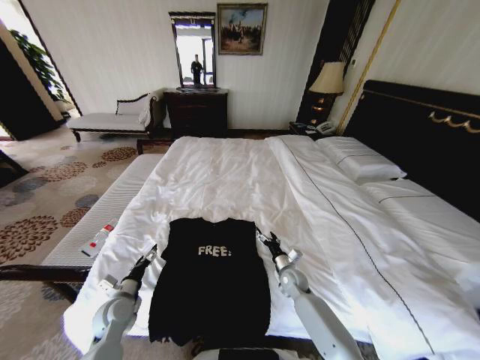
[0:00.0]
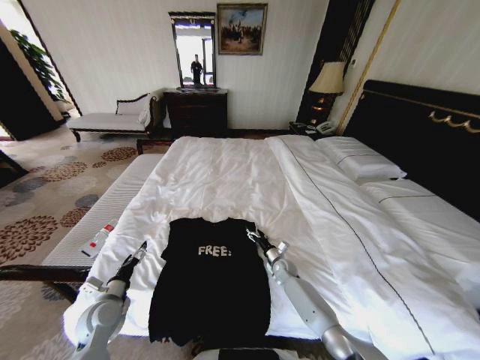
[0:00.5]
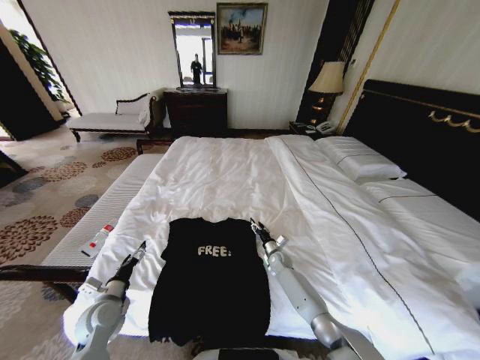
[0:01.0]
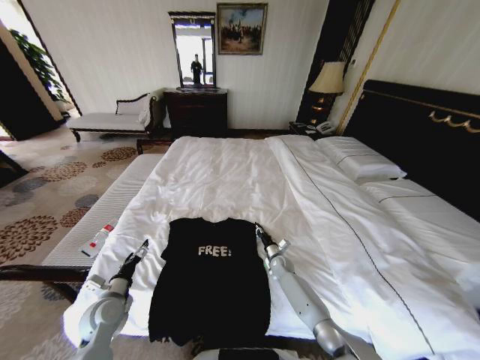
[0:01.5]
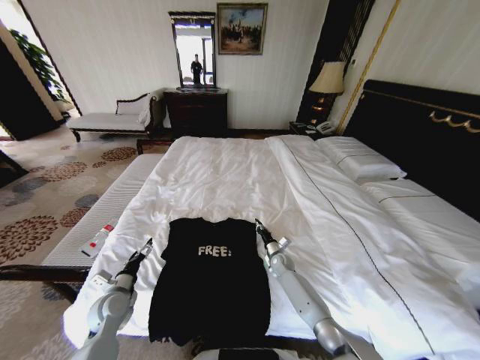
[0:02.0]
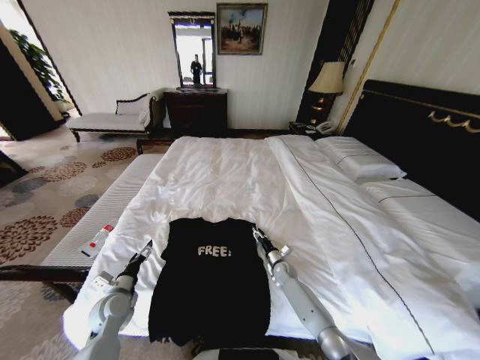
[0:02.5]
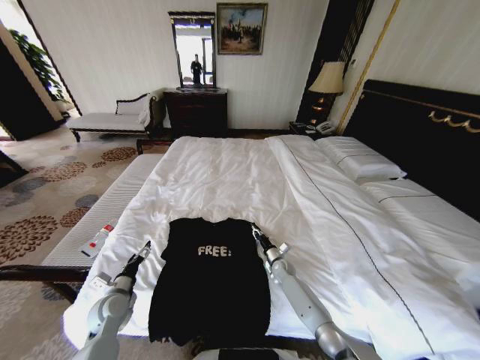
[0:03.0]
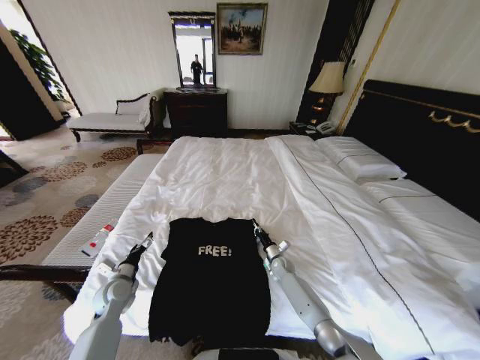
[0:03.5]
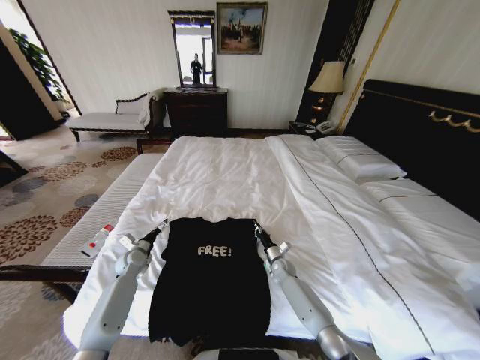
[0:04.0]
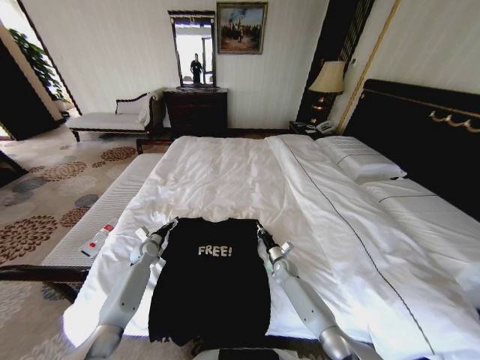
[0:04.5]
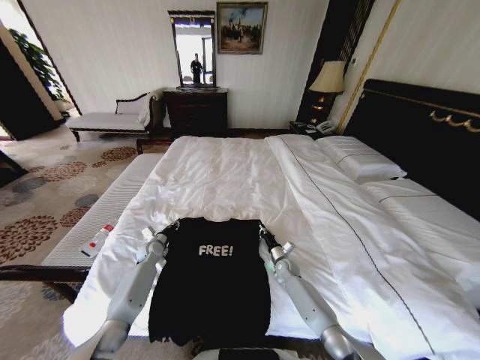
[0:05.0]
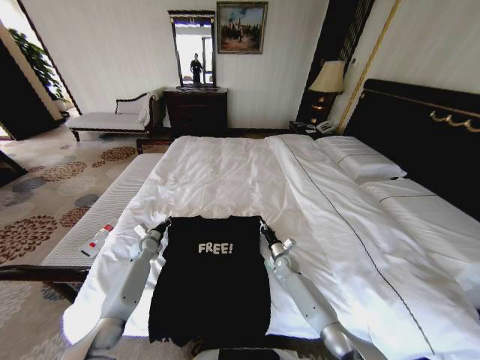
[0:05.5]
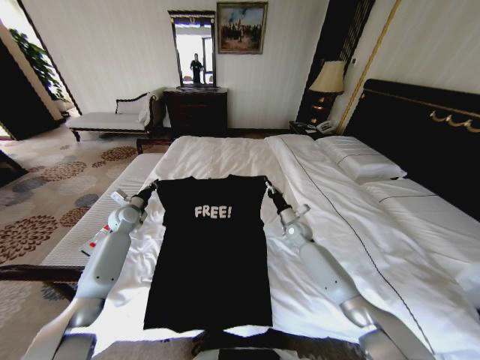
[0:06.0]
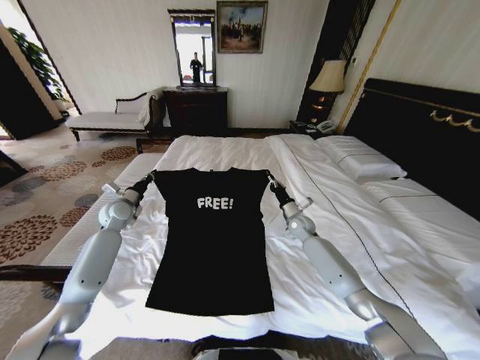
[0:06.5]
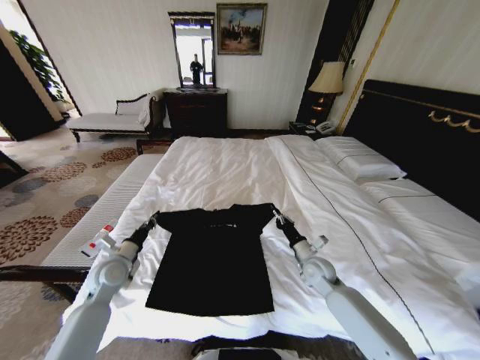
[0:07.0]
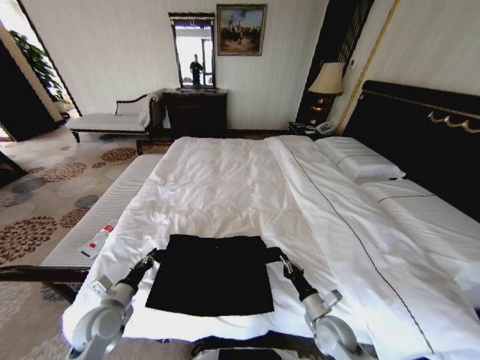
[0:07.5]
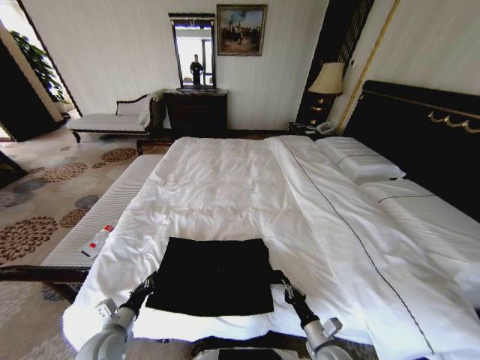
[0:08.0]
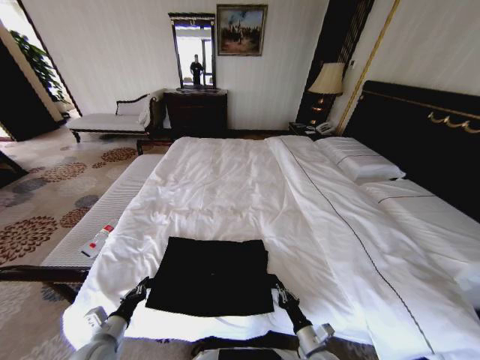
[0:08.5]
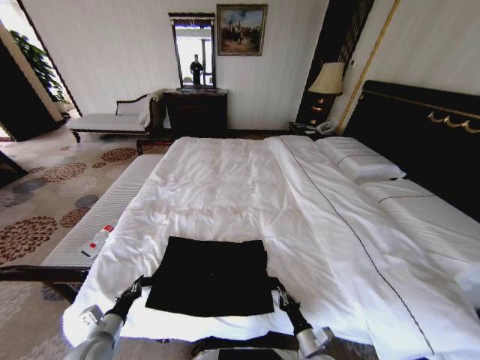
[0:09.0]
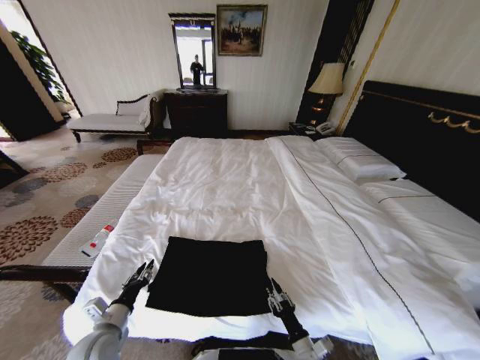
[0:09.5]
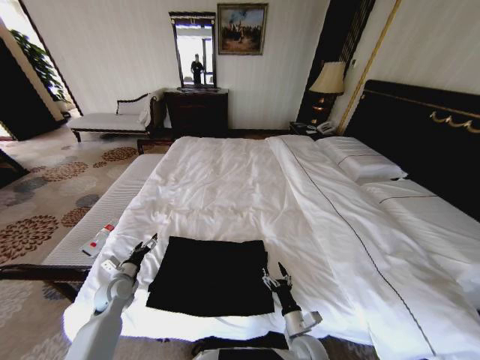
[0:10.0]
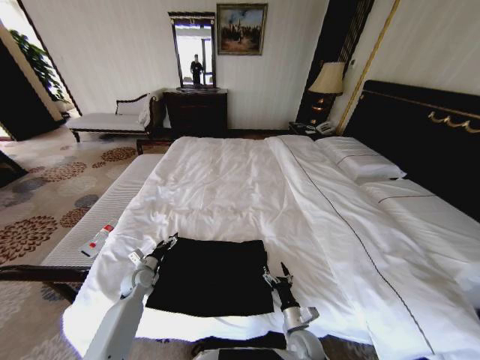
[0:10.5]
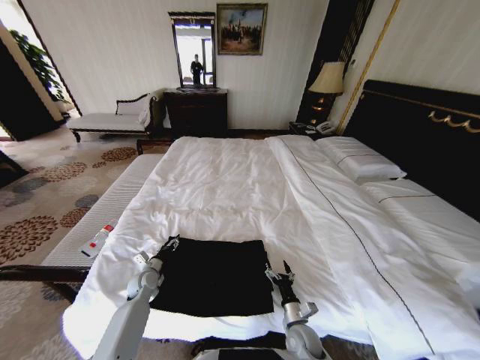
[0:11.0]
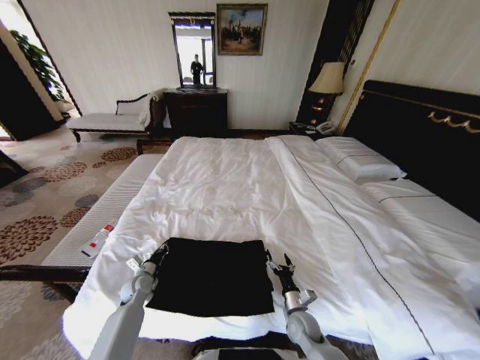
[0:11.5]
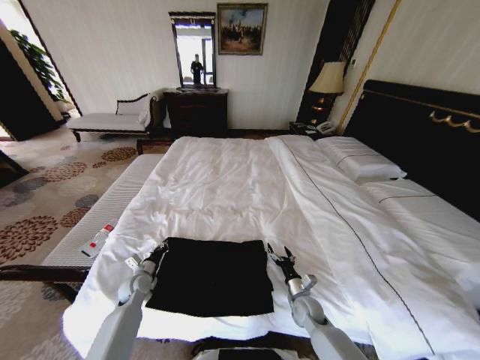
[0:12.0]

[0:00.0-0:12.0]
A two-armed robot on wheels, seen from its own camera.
Task of the whole recording: Fold the clothes on the bed.
0.0 to 2.0 s: The right gripper shifts roughly 10 cm forward, and closes up.
2.0 to 4.0 s: The left gripper heads forward, covering some 15 cm, while the right gripper opens, then closes once more.
4.0 to 6.0 s: The grippers both shift upward and forward by some 15 cm. The left gripper closes its fingers.
6.0 to 8.0 s: Both grippers move backward, about 35 cm.
8.0 to 10.0 s: The left gripper heads forward, covering roughly 15 cm, and opens its fingers; the right gripper heads to the left, covering some 5 cm, and opens up.
10.0 to 12.0 s: The right gripper goes roughly 10 cm forward. Meanwhile the left gripper moves roughly 5 cm, and closes up.

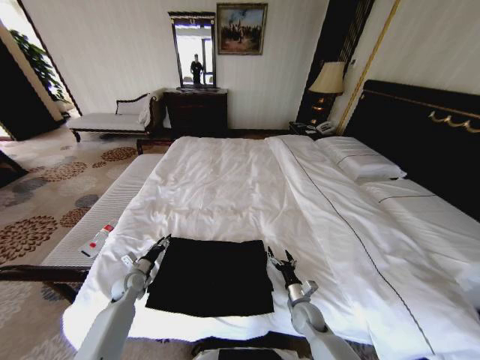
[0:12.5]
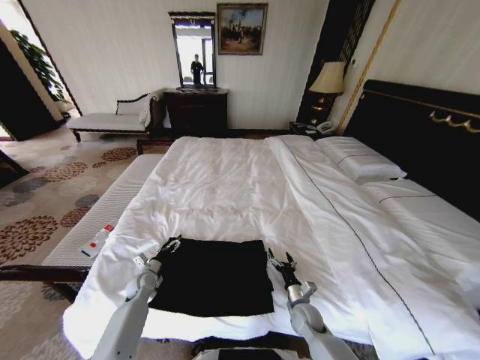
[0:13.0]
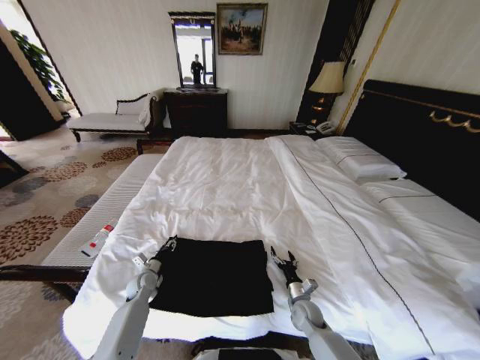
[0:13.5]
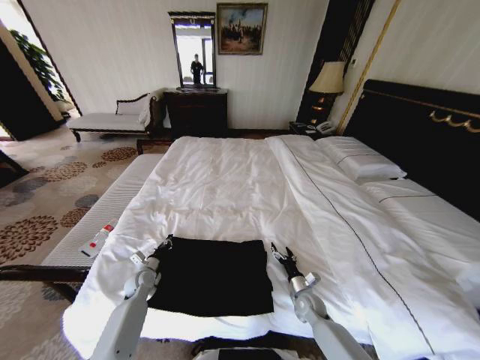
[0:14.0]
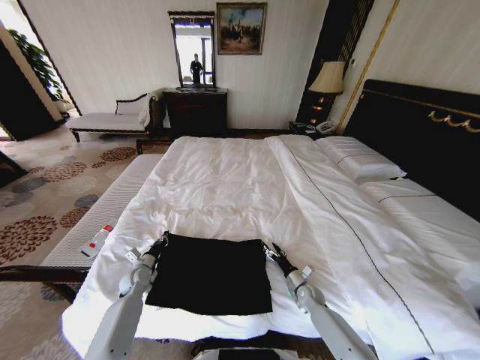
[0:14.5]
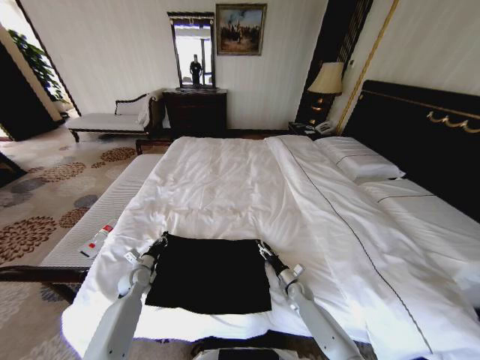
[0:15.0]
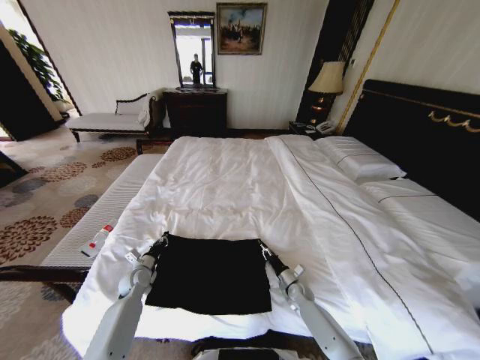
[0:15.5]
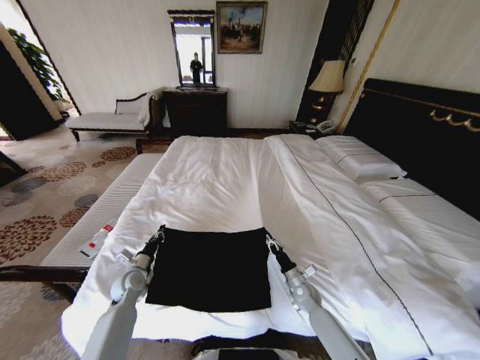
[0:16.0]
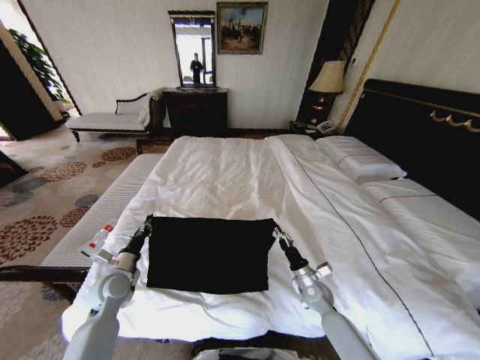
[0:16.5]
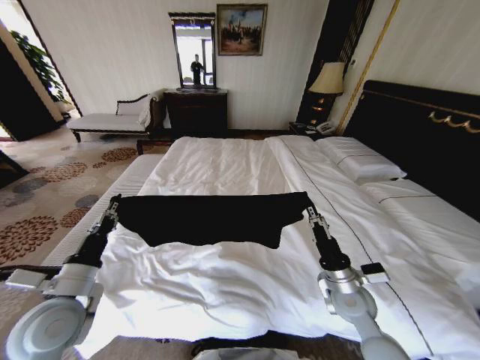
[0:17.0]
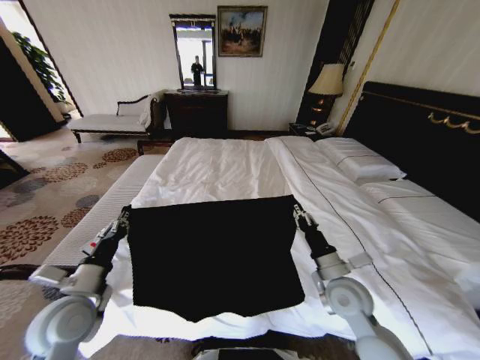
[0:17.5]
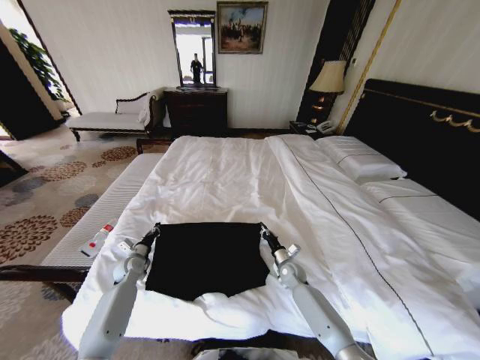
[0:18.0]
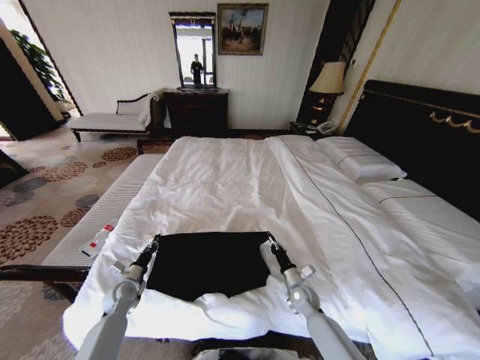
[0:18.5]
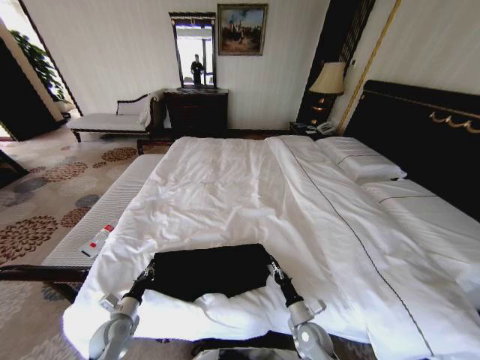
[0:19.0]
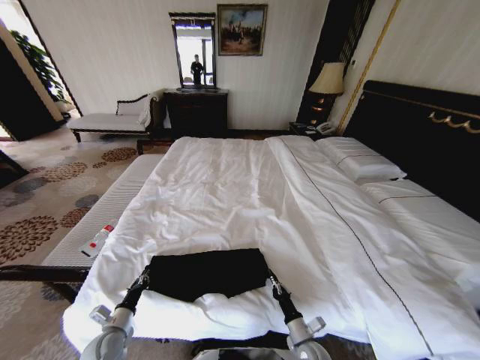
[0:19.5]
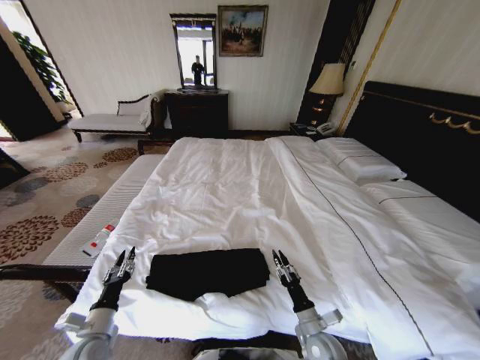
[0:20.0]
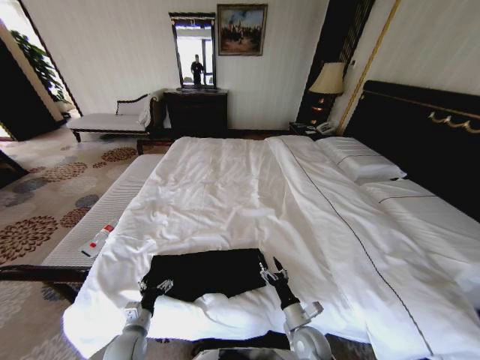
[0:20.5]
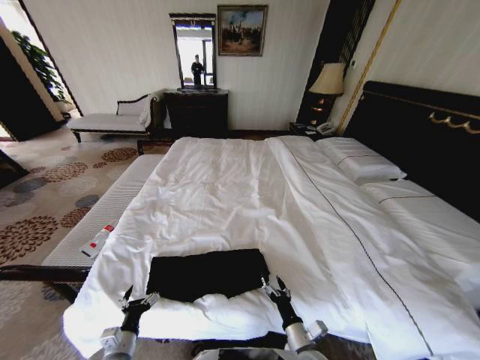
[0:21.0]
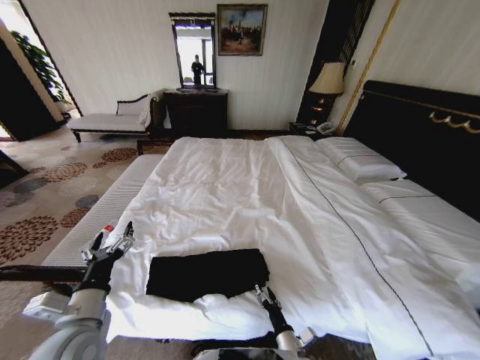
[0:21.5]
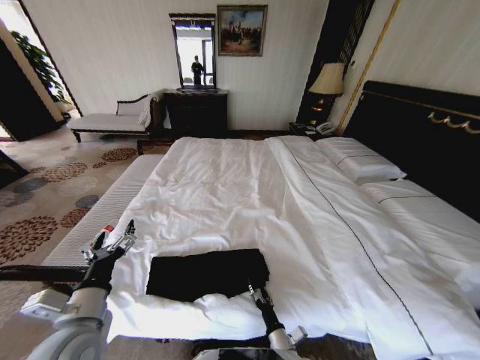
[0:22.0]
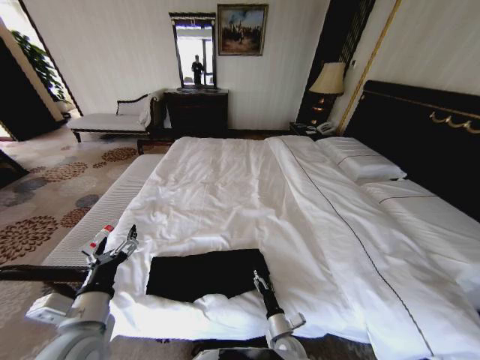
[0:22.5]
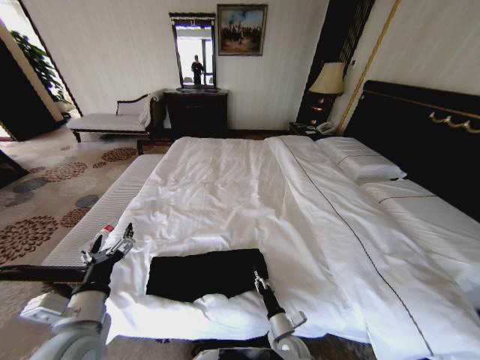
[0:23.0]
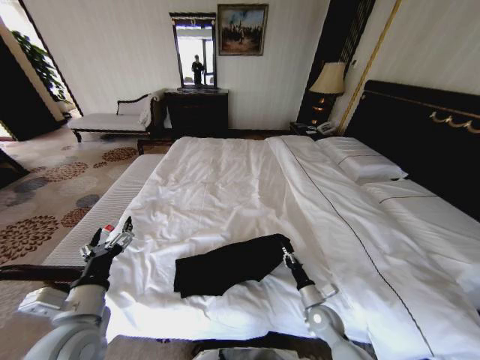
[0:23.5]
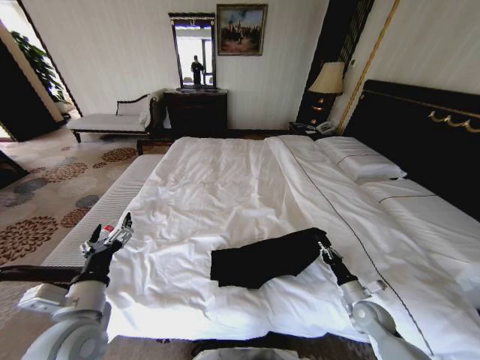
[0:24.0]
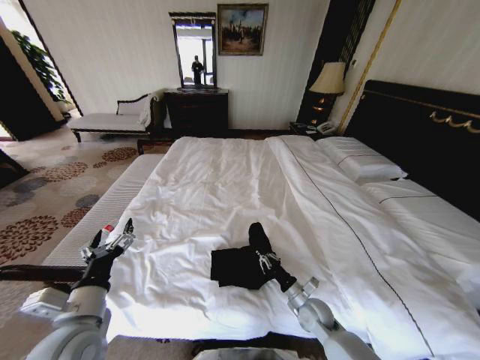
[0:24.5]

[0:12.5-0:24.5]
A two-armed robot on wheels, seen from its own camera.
Task of the whole recording: Fold the clothes on the bed.
12.5 to 14.5 s: The left gripper closes its fingers; the right gripper shifts some 10 cm forward and to the right.
14.5 to 16.5 s: The left gripper is displaced upward and backward by about 10 cm, while the right gripper travels upward by approximately 10 cm, and closes up.
16.5 to 18.5 s: The left gripper travels downward by some 10 cm. Meanwhile the right gripper goes upward and returns, approximately 20 cm each way.
18.5 to 20.5 s: The right gripper is displaced backward by roughly 15 cm, and opens up, while the left gripper travels backward and to the right by approximately 15 cm, and opens up.
20.5 to 22.5 s: The right gripper travels downward by some 5 cm; the left gripper is displaced upward by roughly 25 cm.
22.5 to 24.5 s: The right gripper moves forward and upward, some 10 cm, reaches some 25 cm to the right, then returns, and closes up.

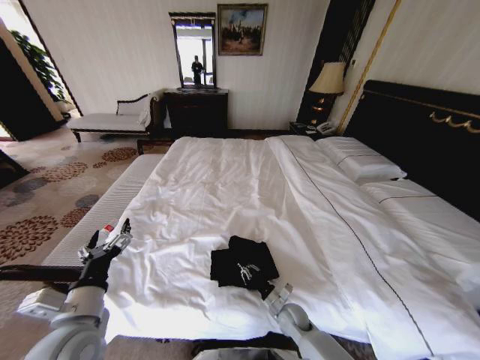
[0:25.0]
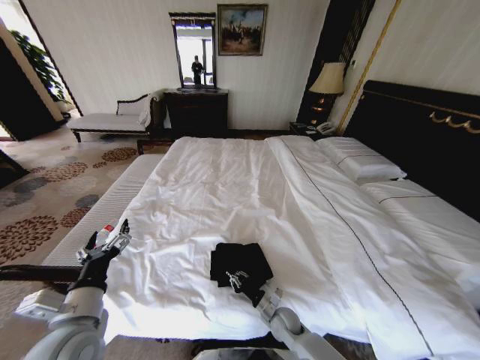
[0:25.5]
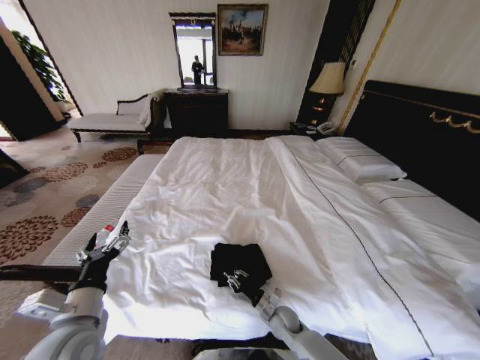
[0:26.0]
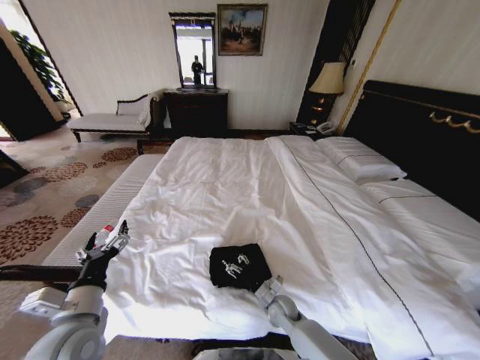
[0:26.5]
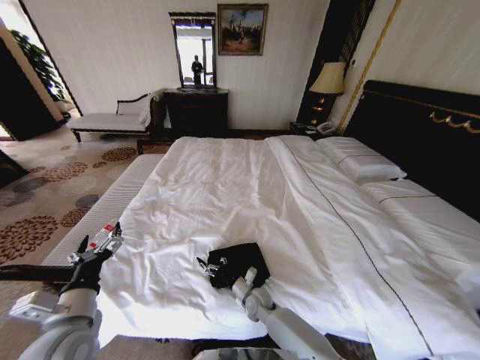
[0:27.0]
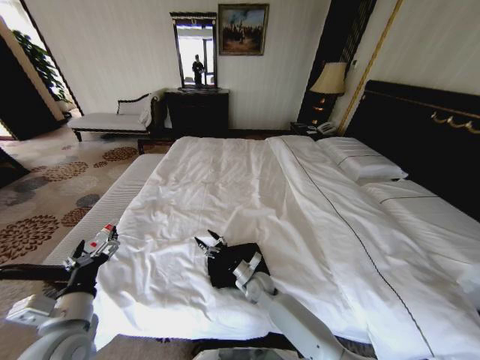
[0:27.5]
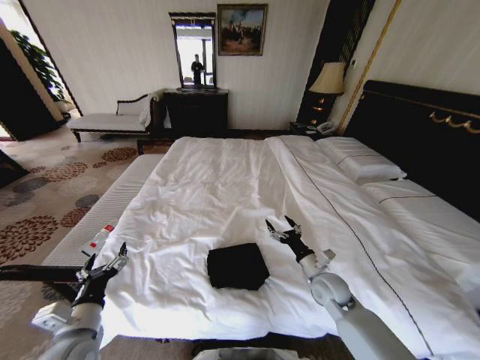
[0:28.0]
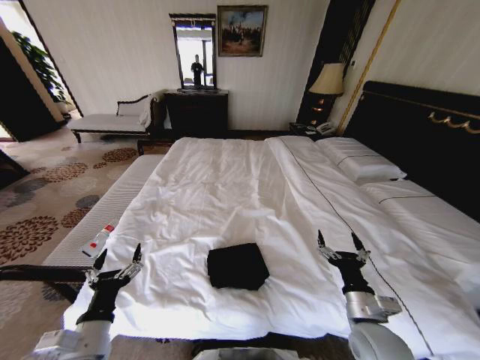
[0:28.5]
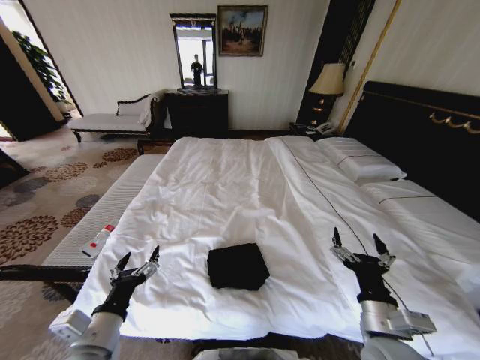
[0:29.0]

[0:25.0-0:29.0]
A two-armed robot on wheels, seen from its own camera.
Task of the whole recording: Fold the clothes on the bed.
25.0 to 27.0 s: The right gripper moves to the left, about 10 cm, and opens its fingers.
27.0 to 29.0 s: The right gripper heads upward, to the right and backward, covering approximately 35 cm; the left gripper shifts by approximately 5 cm.
